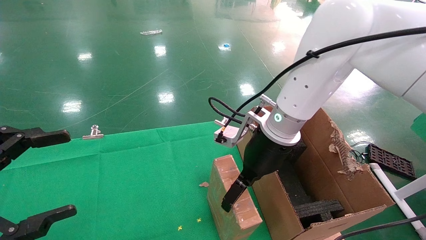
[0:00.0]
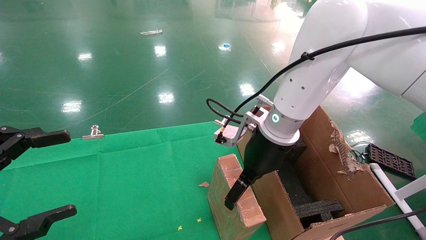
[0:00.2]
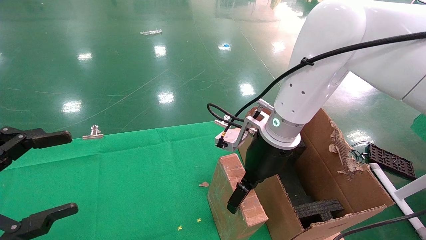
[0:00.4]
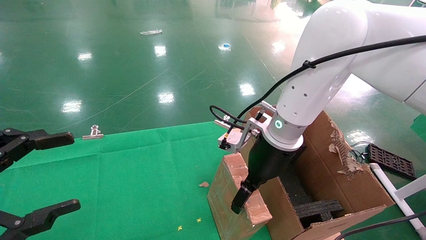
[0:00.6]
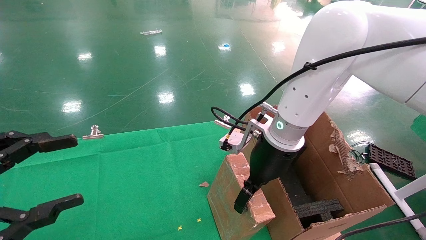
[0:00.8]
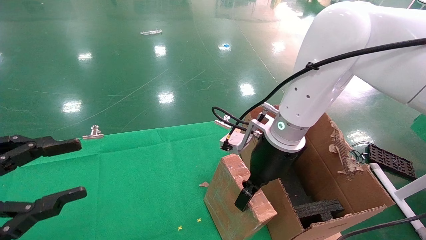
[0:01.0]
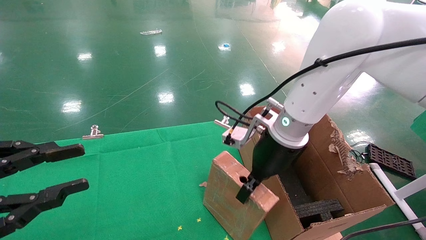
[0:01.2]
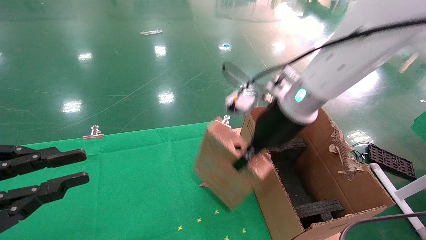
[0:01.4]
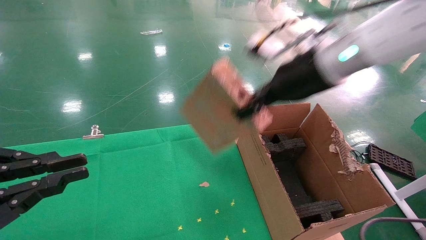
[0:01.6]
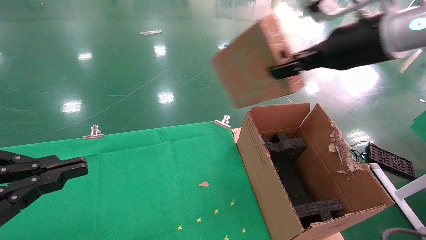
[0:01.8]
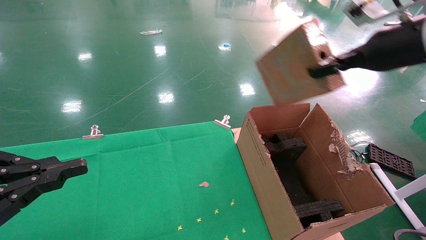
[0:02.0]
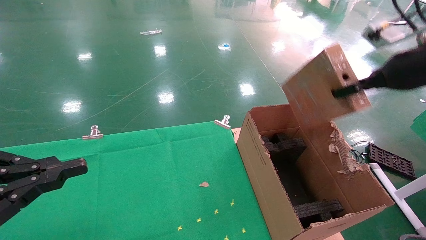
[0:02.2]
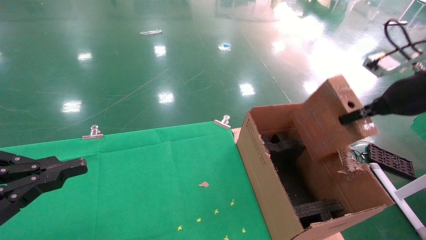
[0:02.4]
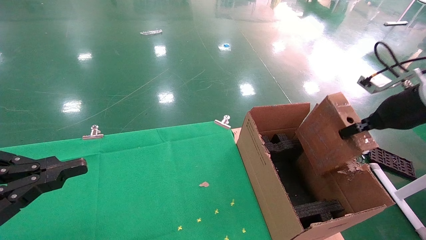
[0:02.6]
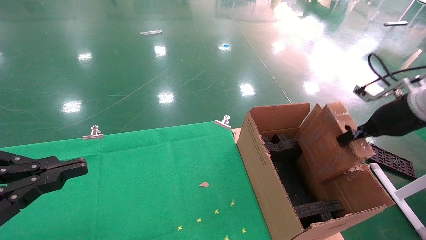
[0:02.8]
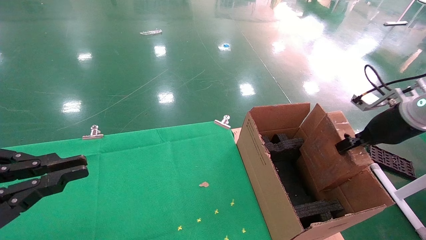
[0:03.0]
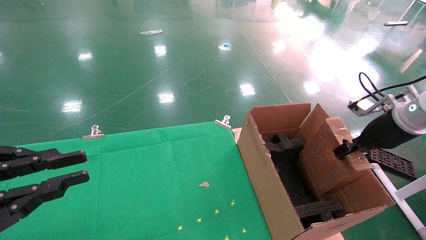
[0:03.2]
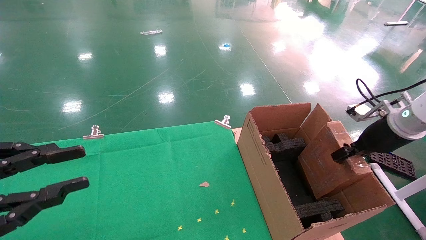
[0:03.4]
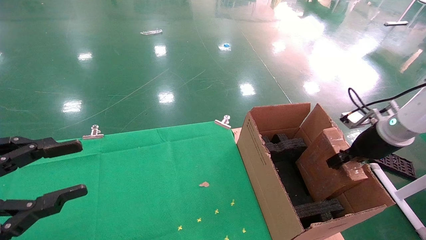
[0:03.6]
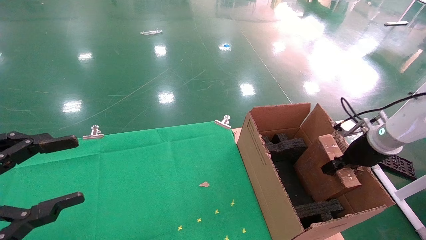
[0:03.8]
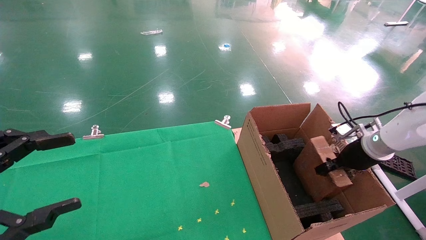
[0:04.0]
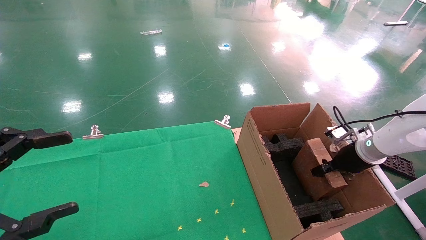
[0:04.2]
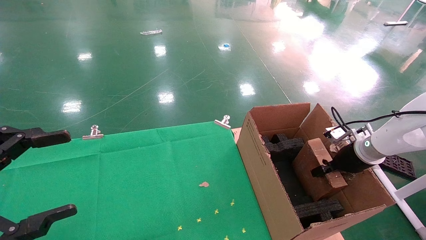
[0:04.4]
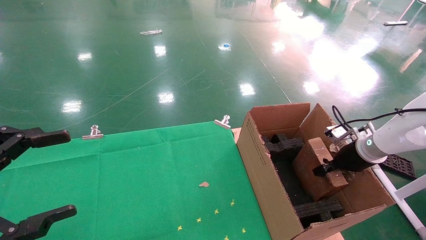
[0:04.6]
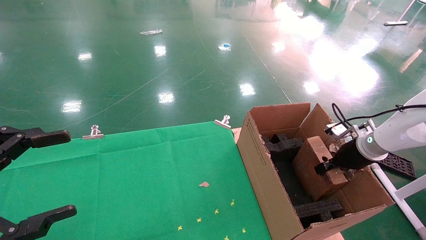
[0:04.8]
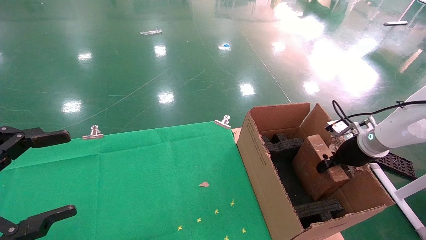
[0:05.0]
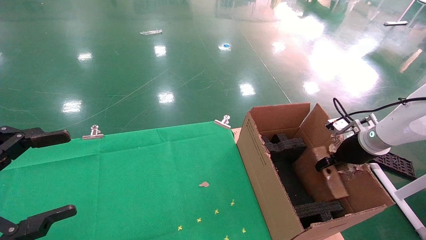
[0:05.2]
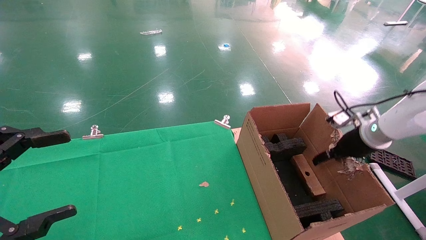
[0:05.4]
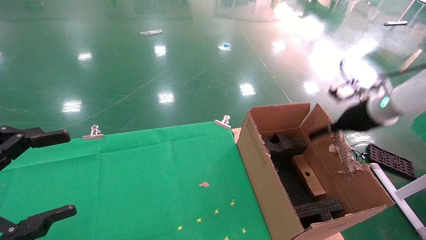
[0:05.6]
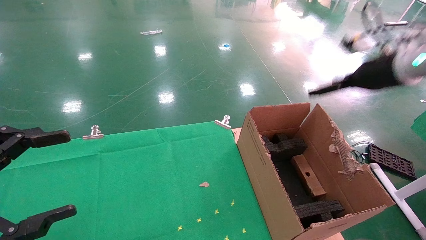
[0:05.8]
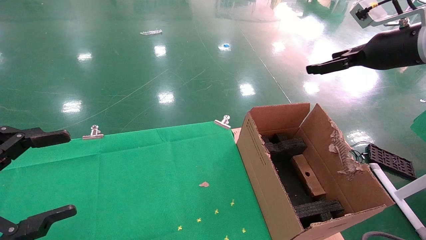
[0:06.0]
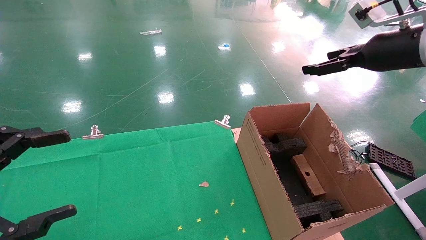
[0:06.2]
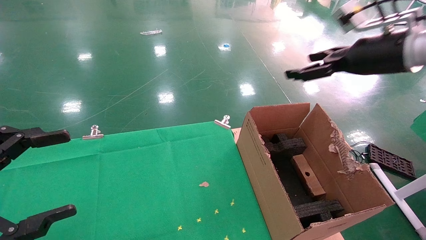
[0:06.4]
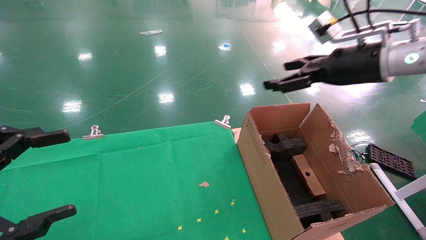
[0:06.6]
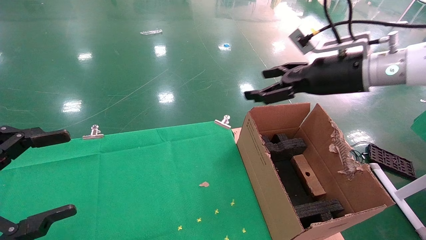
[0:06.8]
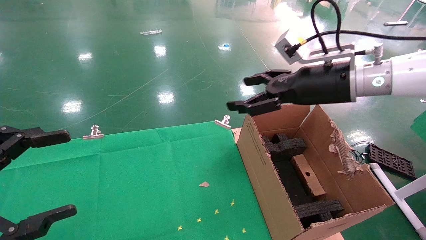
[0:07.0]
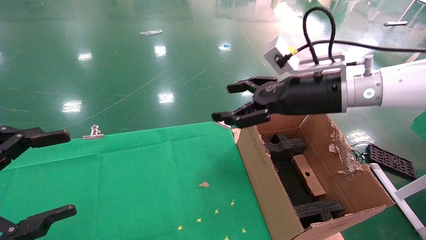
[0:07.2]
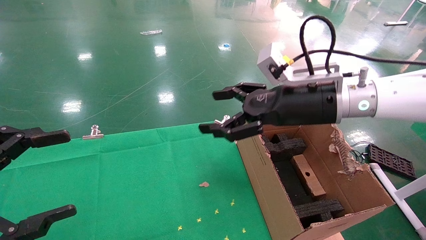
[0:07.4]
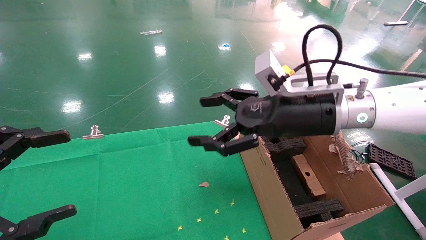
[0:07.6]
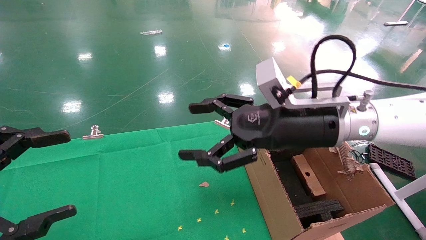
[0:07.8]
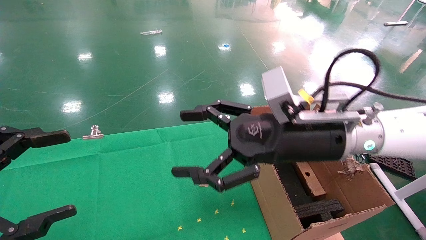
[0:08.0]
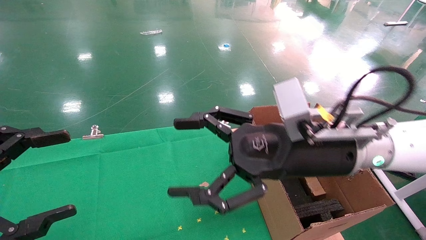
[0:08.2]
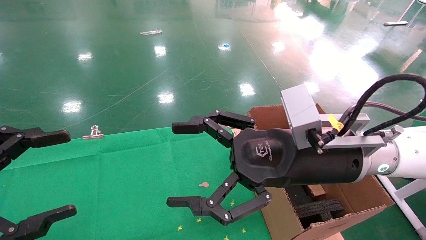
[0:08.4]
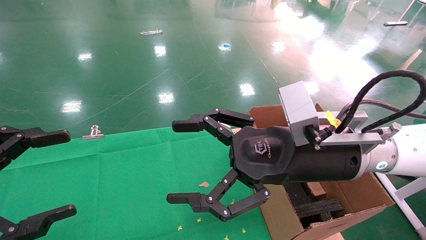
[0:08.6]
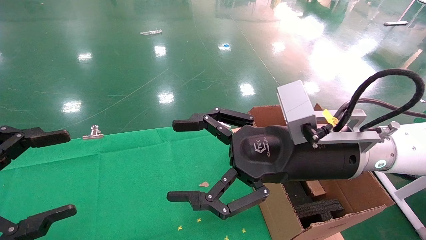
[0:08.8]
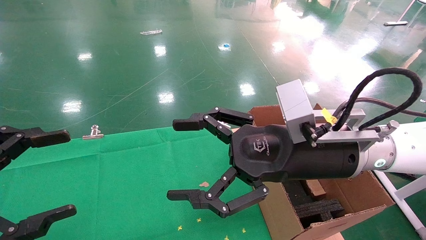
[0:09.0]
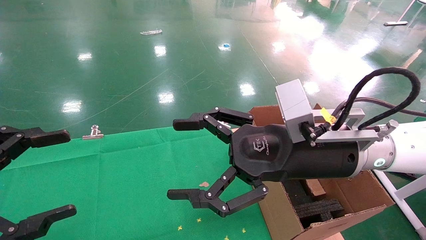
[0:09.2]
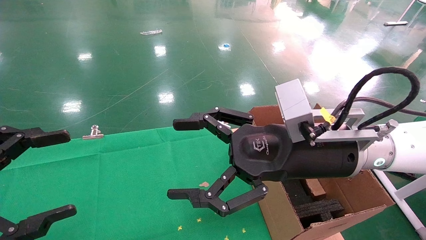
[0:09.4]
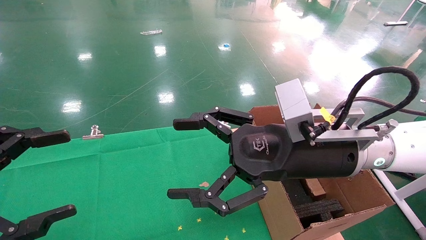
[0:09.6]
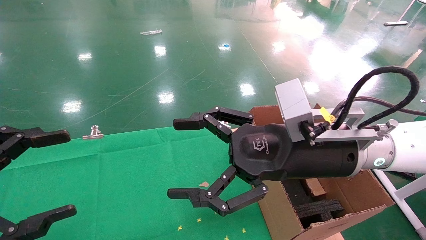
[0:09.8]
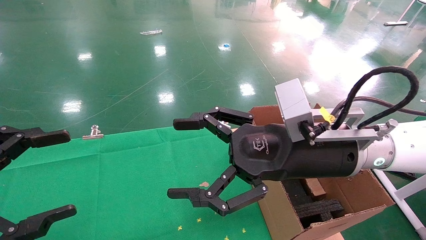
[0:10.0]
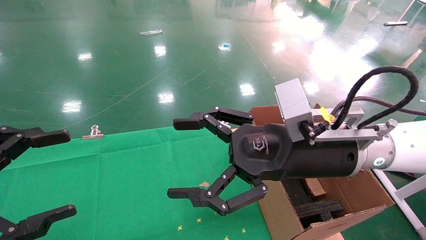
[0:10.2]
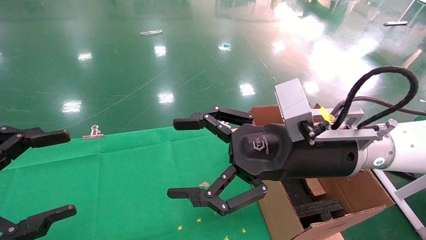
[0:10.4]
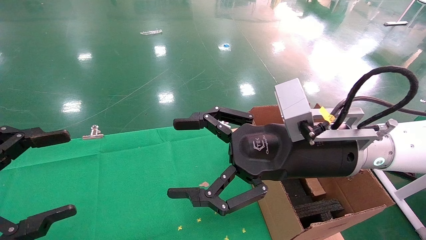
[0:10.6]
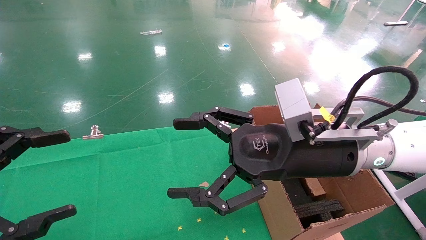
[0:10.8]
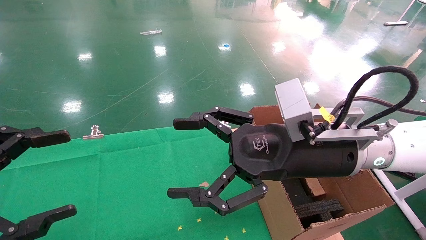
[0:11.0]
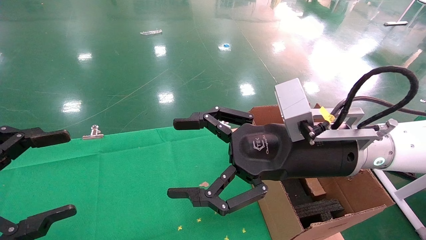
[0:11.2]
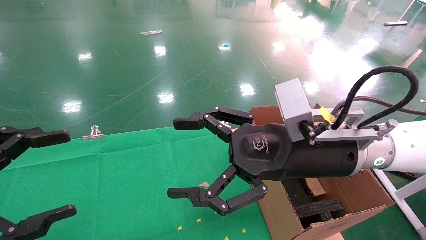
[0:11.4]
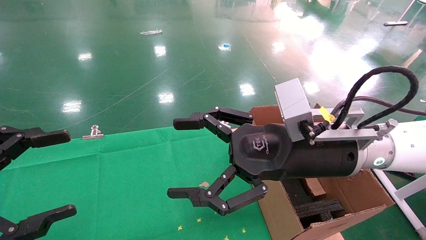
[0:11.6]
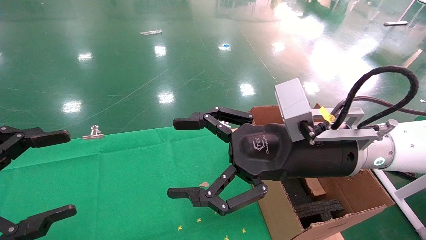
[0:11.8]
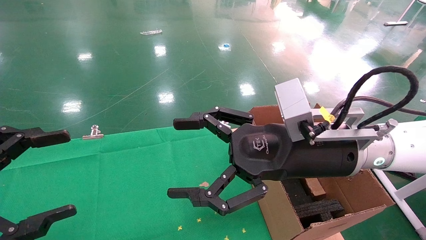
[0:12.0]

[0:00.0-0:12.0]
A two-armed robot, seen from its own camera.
Task of the whole recording: using a robotic arm to pick up a cardboard box and palace it the carton.
Step, 0:01.6 to 0:06.2: Place the mouse and the power cord paper box into the container.
0:00.0 to 0:01.6: The left gripper closes its fingers; the right gripper shifts roughly 15 cm upward and to the right, and closes its fingers.
0:01.6 to 0:03.0: The right gripper travels to the right and downward by about 25 cm.
0:03.0 to 0:04.4: The left gripper opens its fingers, while the right gripper travels downward and forward by roughly 15 cm.
0:04.4 to 0:06.0: The right gripper goes approximately 25 cm upward, and opens up.
0:06.0 to 0:07.6: The right gripper moves to the left and downward, roughly 20 cm.
0:07.6 to 0:09.0: The right gripper travels backward by about 5 cm.
0:09.0 to 0:12.0: Both grippers stay put.
